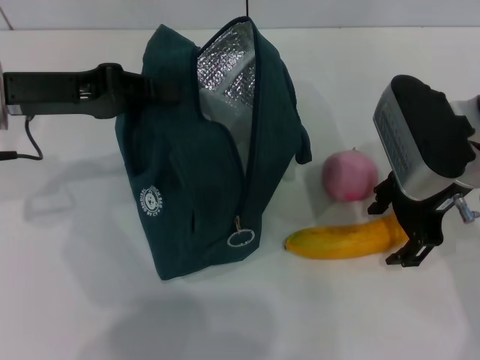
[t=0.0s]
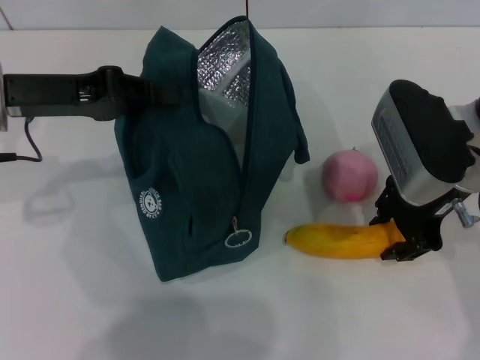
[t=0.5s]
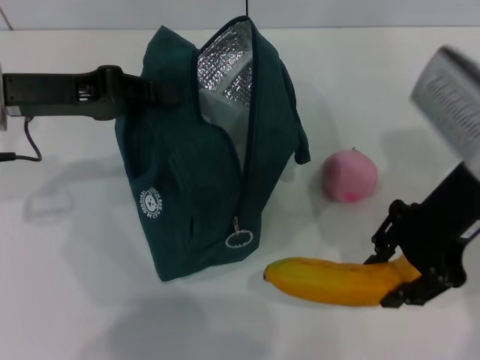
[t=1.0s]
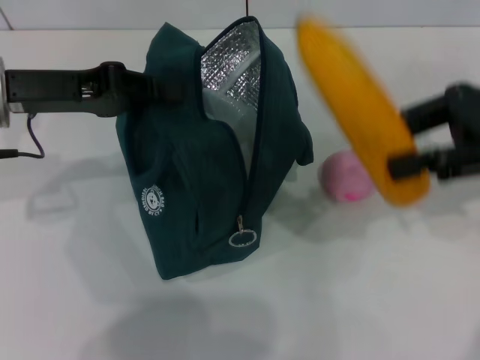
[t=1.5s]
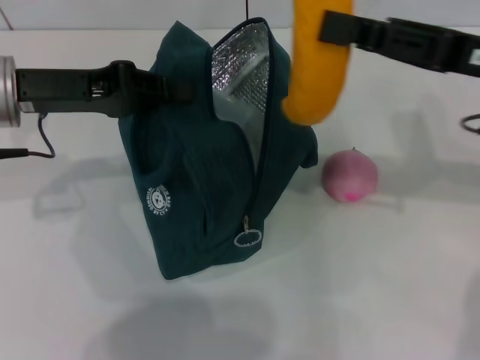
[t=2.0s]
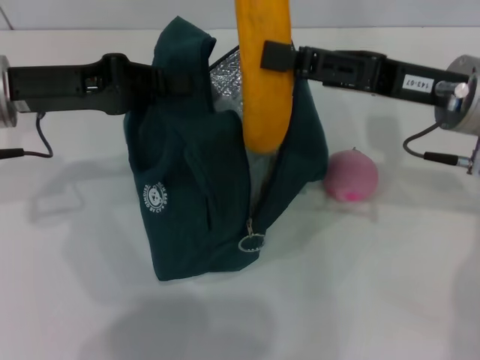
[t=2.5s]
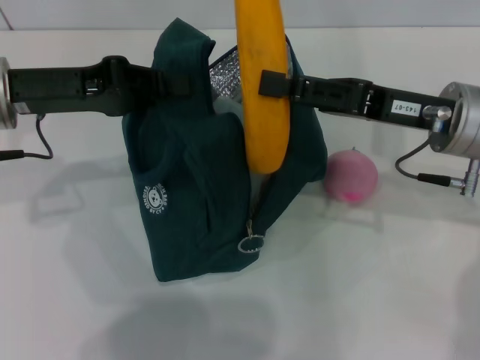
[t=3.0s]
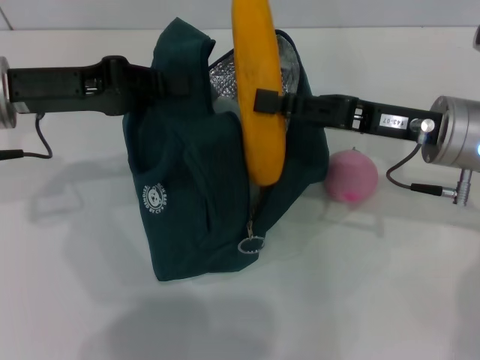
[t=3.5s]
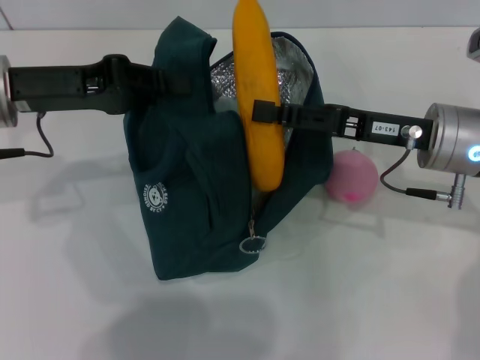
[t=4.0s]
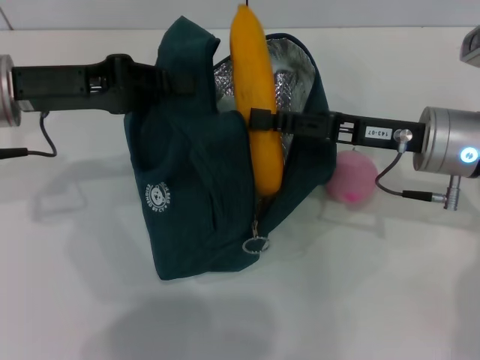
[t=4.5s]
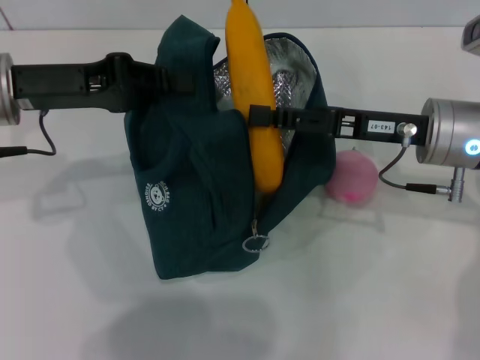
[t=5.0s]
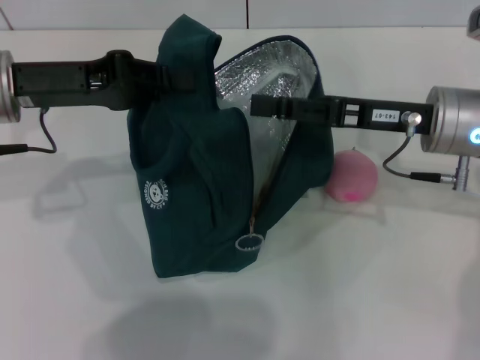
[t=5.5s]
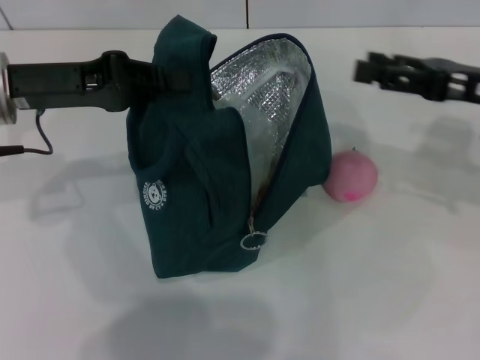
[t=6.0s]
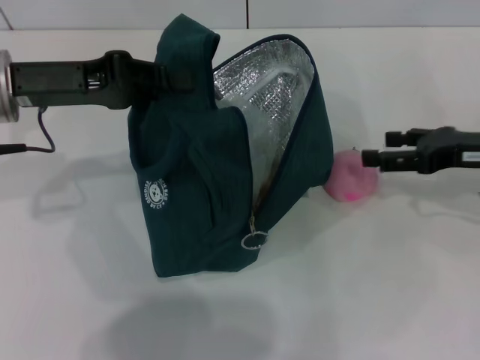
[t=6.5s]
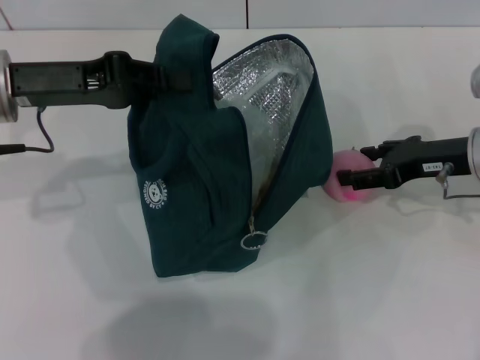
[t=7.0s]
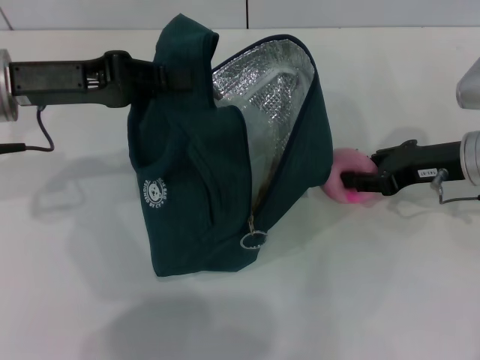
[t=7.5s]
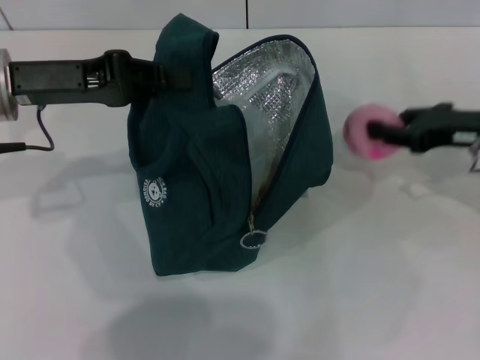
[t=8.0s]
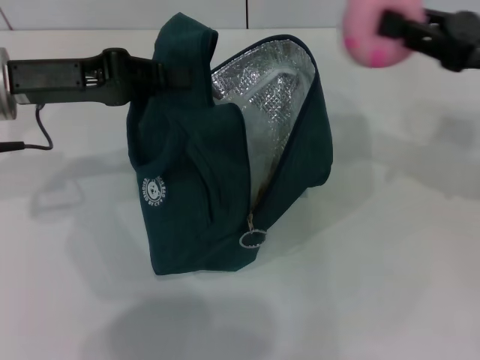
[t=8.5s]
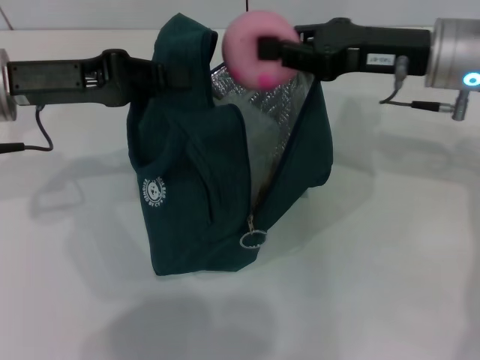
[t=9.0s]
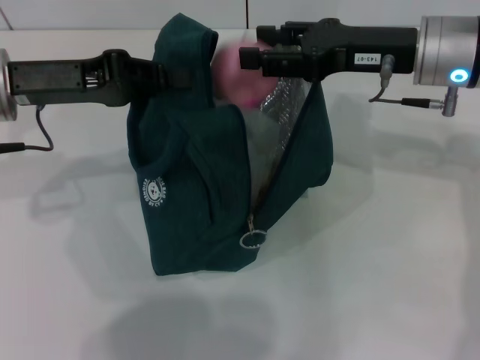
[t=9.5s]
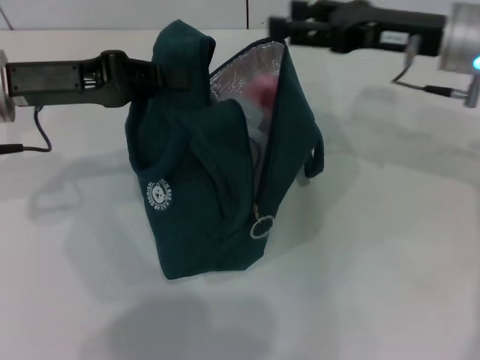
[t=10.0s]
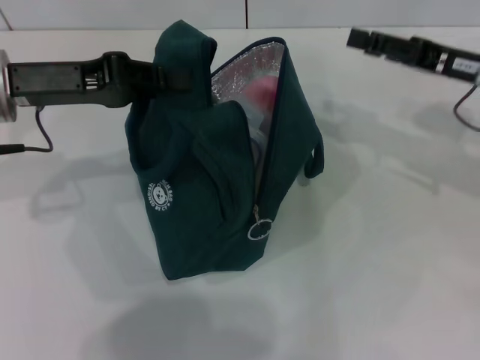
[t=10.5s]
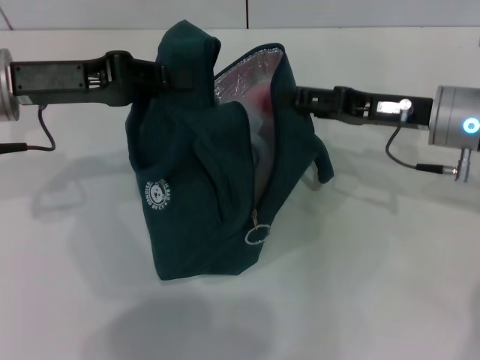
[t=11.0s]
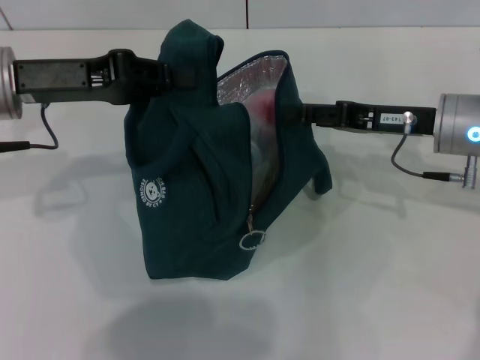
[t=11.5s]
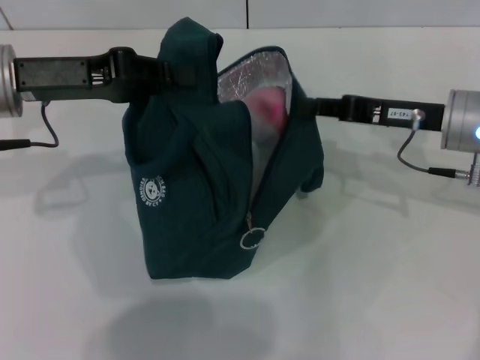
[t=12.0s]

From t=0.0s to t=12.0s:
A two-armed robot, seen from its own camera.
Step, from t=0.5s to t=5.5s: Put the banana into the lunch bag with your right hand.
Step, from t=6.0s to t=7.5s: Grab the peach with your right hand.
From t=0.0s to t=2.0s: The right gripper closes.
From t=2.0s to t=4.0s: The right gripper moves downward, about 5 cm.
From t=4.0s to t=6.0s: The right gripper heads to the right, covering roughly 10 cm, and opens up.
From t=6.0s to t=8.0s: The right gripper closes.
From t=8.0s to t=10.0s: The right gripper goes approximately 10 cm to the left and upward, and opens.
From t=10.0s to t=12.0s: The right gripper goes approximately 5 cm downward, and closes its fingers.

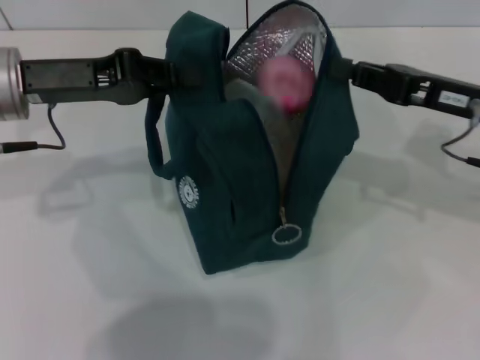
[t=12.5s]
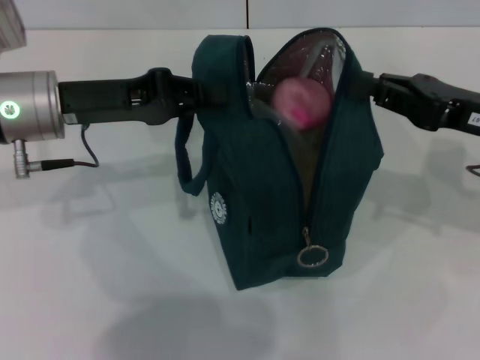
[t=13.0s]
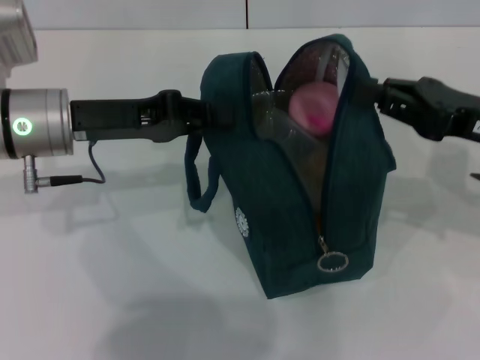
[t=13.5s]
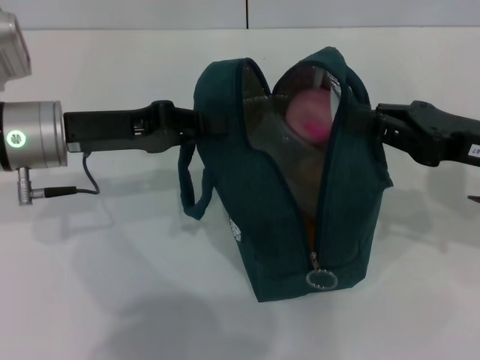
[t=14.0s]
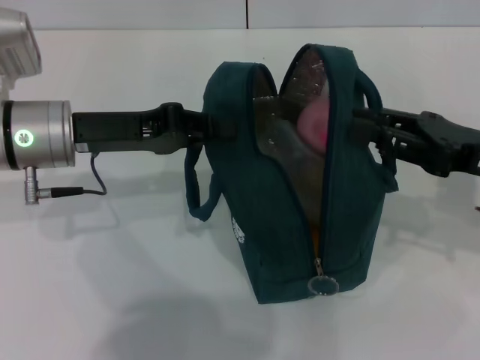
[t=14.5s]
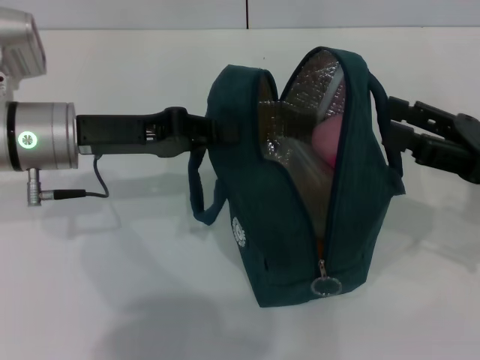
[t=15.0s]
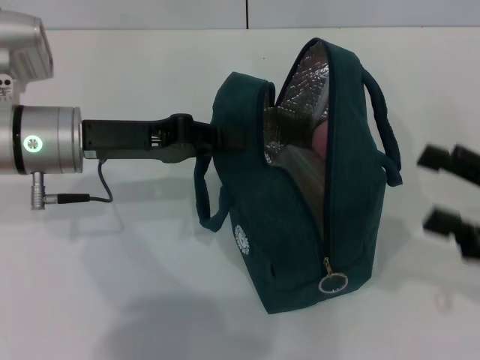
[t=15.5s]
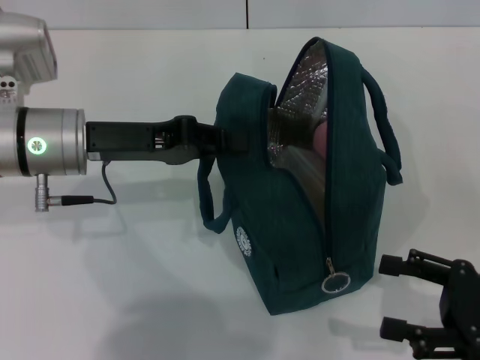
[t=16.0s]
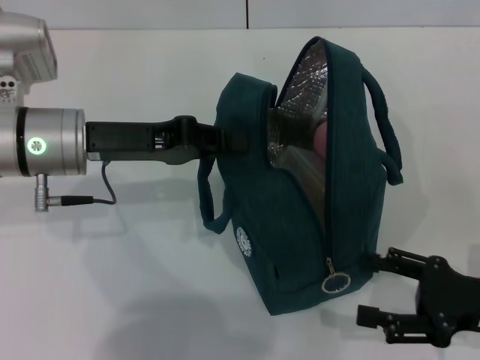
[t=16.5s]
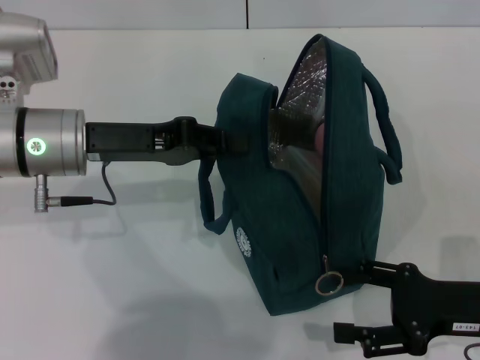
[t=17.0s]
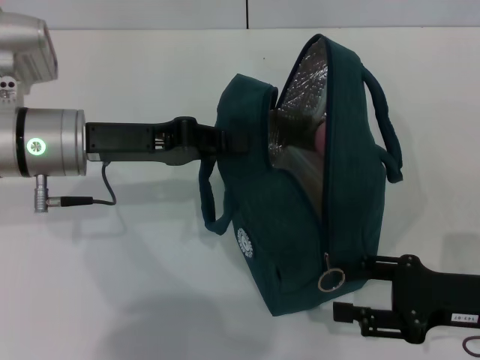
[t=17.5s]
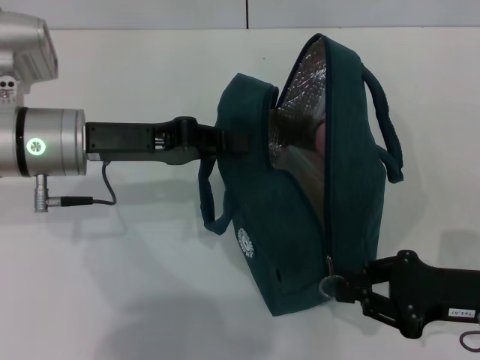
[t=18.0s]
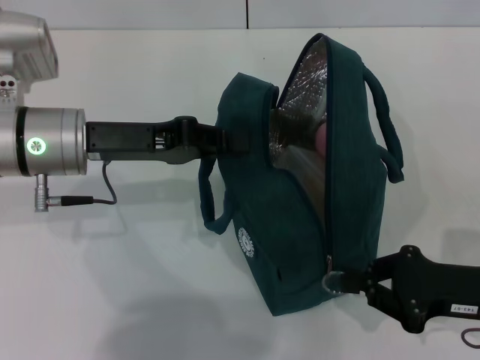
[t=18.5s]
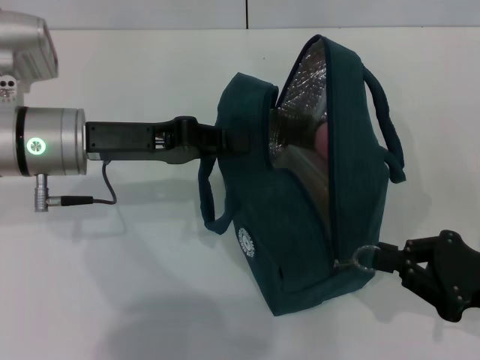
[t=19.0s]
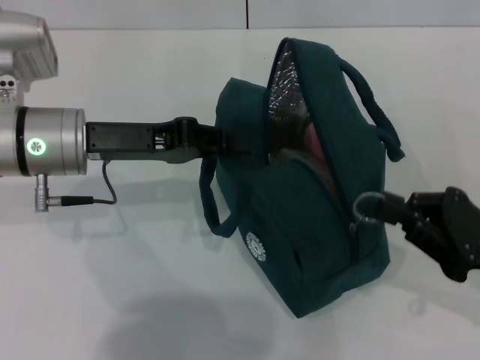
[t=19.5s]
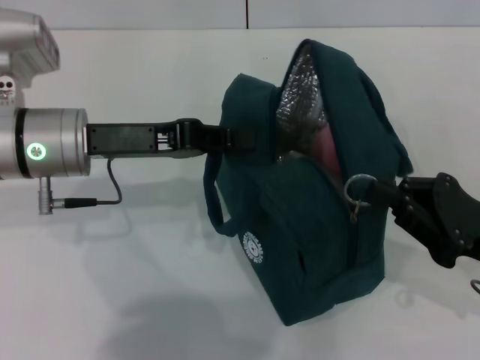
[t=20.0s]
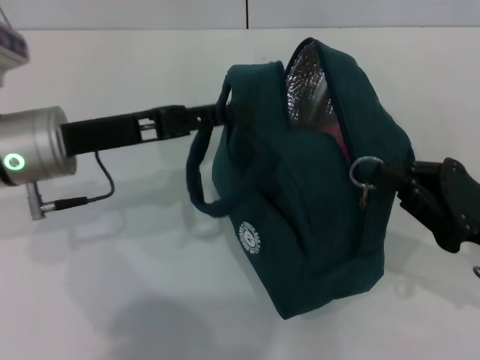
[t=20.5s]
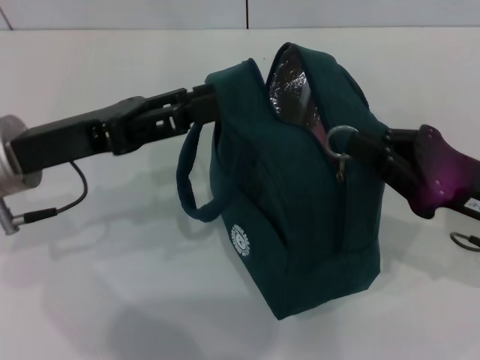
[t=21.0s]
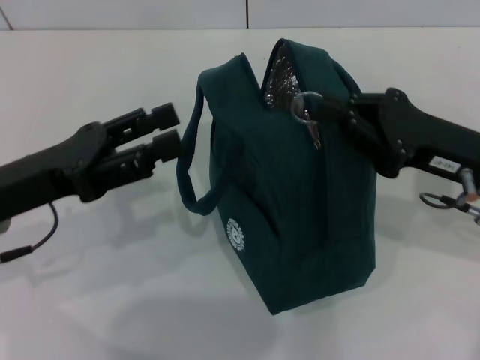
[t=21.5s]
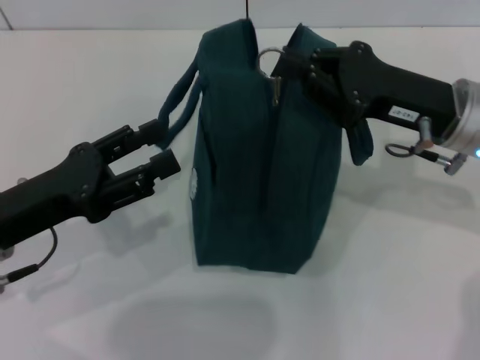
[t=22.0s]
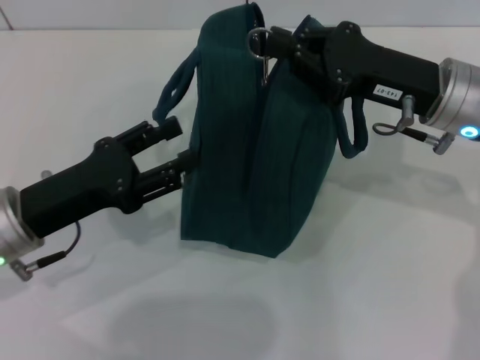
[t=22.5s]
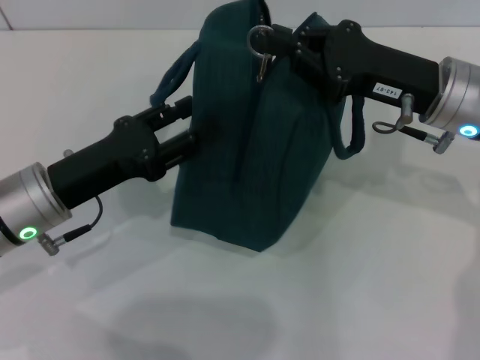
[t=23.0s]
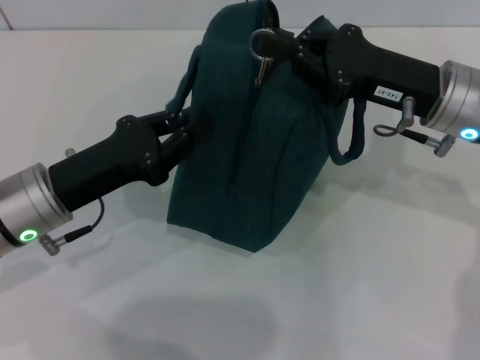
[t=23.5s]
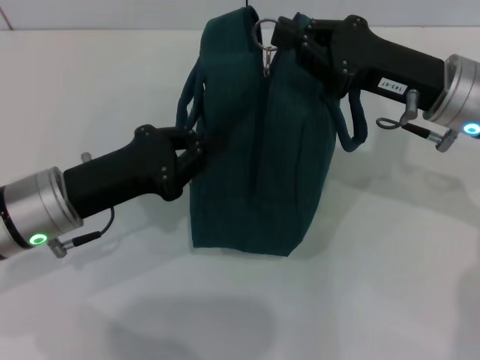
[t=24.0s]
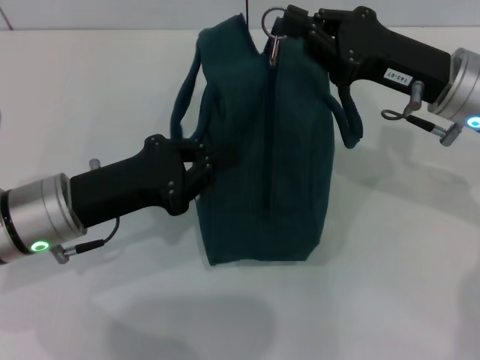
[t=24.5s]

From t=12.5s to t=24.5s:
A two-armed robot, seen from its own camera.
Step, from t=12.5s to t=14.5s: Hold the lunch bag with your right hand.
Step, from t=15.0s to t=21.0s: Hold the lunch bag with your left hand.
From t=12.5s to t=14.5s: The left gripper ends up about 5 cm from where it was, while the right gripper ends up approximately 5 cm from where it was.
From t=14.5s to t=16.5s: The right gripper goes approximately 10 cm backward and downward, and opens.
From t=16.5s to t=18.5s: The right gripper closes.
From t=20.5s to t=22.5s: The left gripper travels backward and downward by about 10 cm, and opens up. Meanwhile the right gripper travels forward, to the left and upward by approximately 15 cm.
From t=22.5s to t=24.5s: The left gripper closes its fingers.

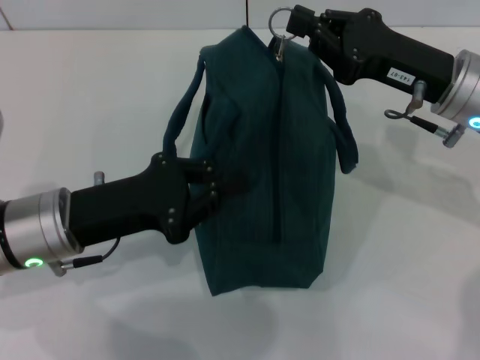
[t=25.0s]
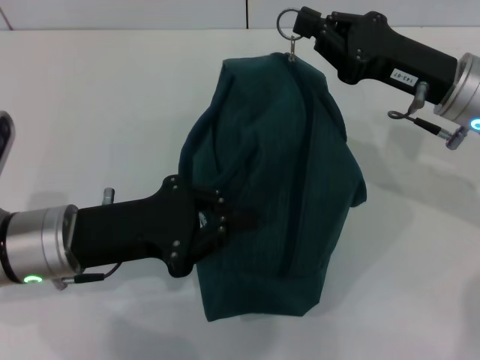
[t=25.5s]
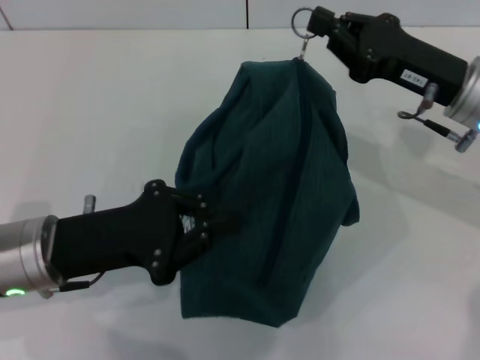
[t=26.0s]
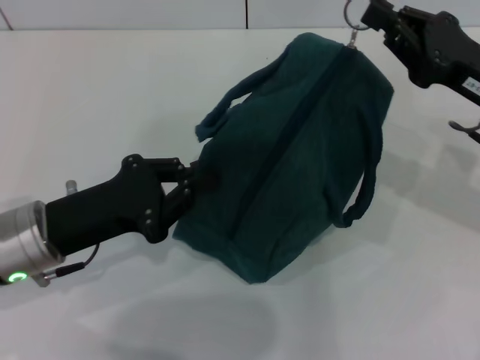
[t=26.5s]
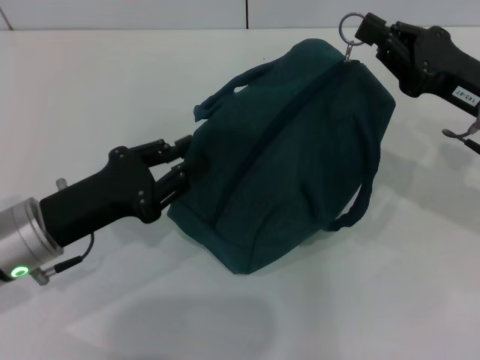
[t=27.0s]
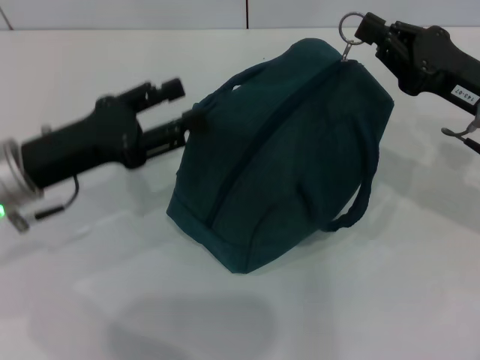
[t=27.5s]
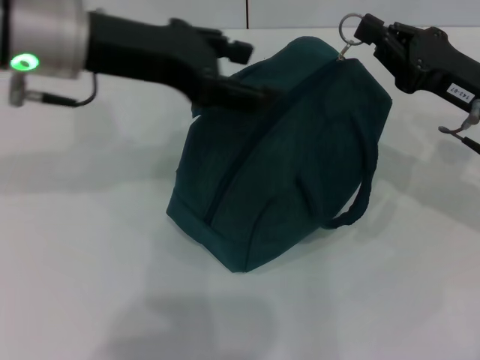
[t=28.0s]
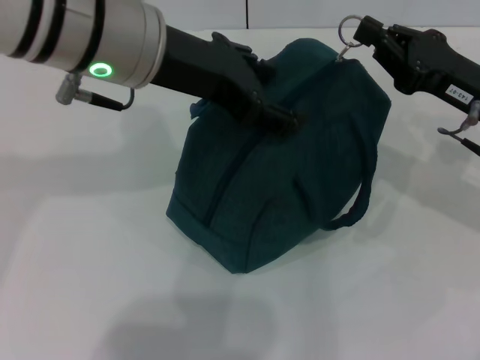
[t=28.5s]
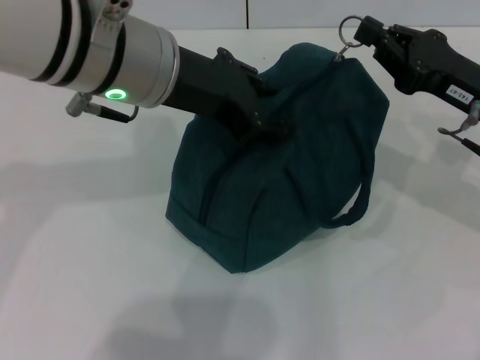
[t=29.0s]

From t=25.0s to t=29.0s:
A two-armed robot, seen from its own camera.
From t=25.0s to t=27.0s: The right gripper is displaced to the right by some 5 cm.
From t=27.0s to t=29.0s: The left gripper travels upward, to the right and forward by about 25 cm, and opens.
